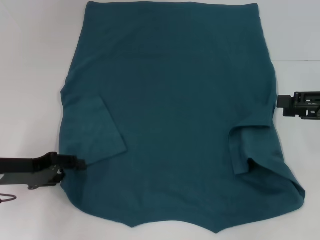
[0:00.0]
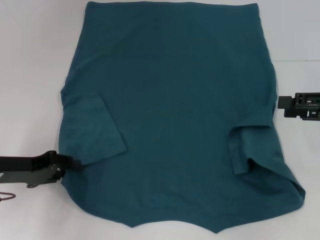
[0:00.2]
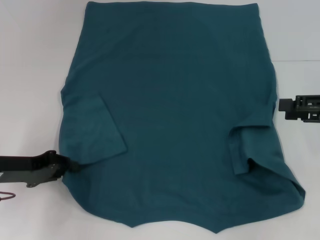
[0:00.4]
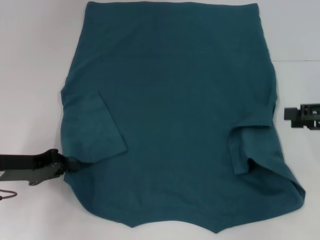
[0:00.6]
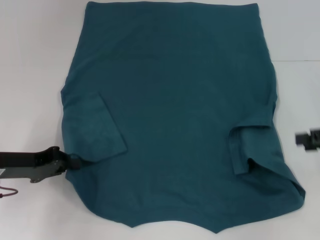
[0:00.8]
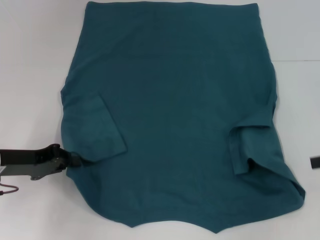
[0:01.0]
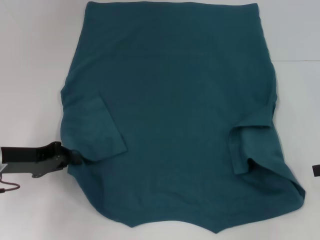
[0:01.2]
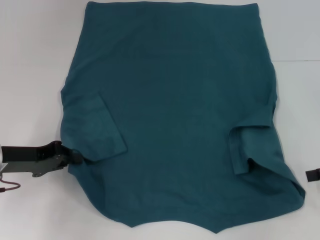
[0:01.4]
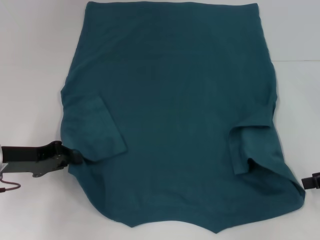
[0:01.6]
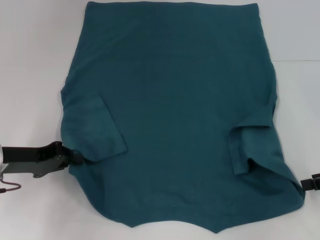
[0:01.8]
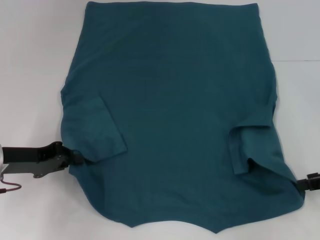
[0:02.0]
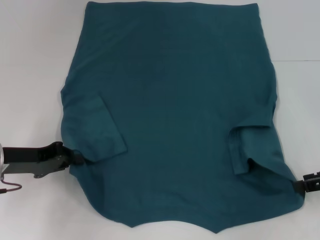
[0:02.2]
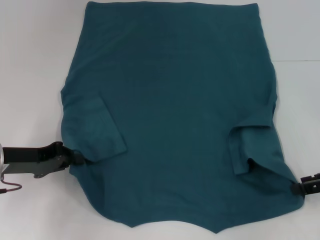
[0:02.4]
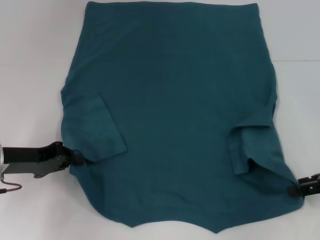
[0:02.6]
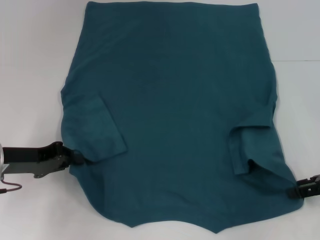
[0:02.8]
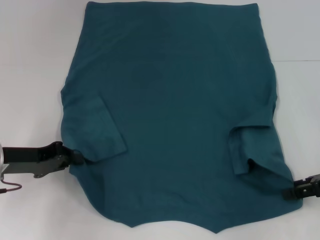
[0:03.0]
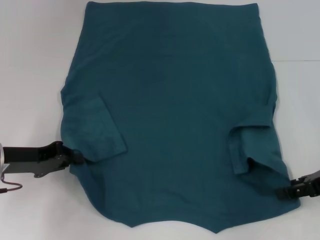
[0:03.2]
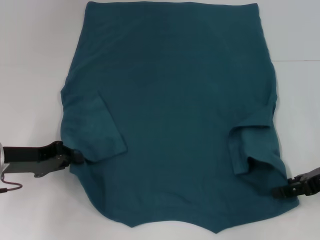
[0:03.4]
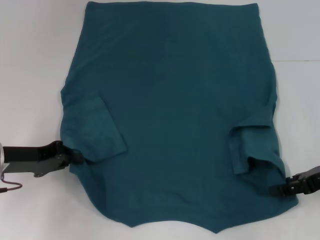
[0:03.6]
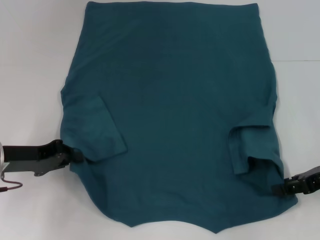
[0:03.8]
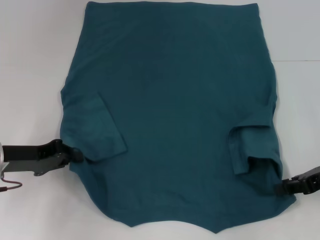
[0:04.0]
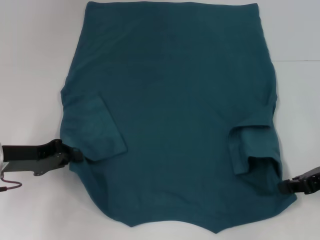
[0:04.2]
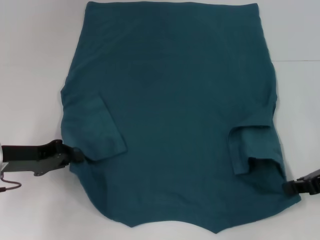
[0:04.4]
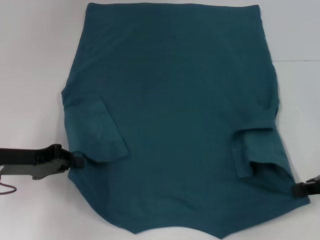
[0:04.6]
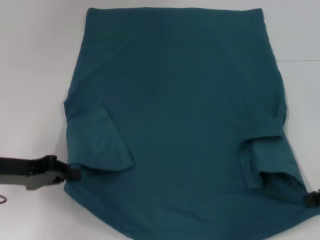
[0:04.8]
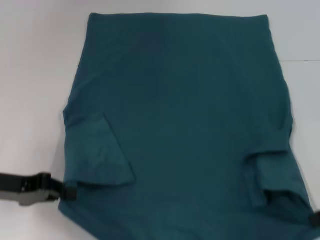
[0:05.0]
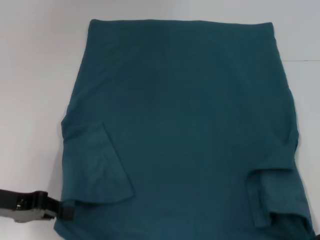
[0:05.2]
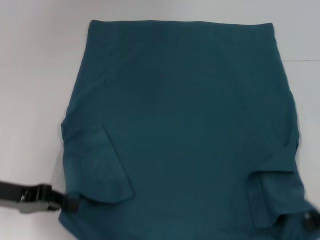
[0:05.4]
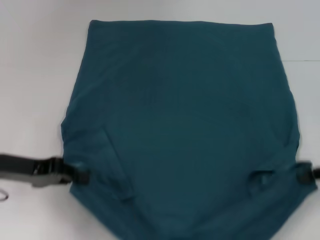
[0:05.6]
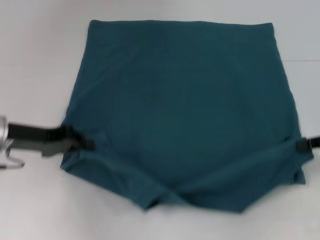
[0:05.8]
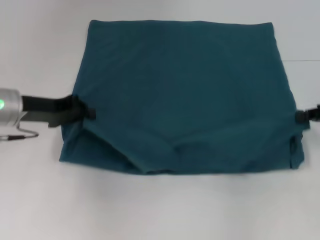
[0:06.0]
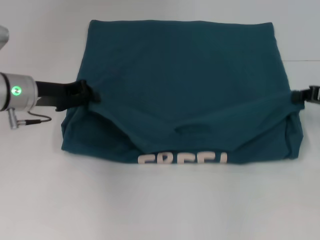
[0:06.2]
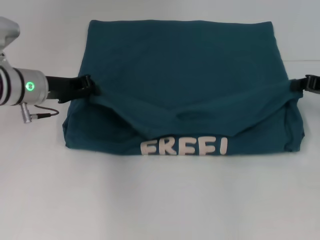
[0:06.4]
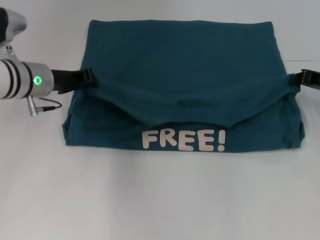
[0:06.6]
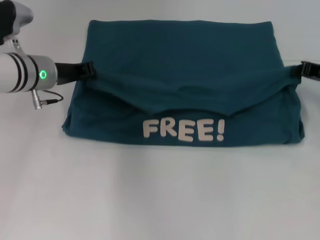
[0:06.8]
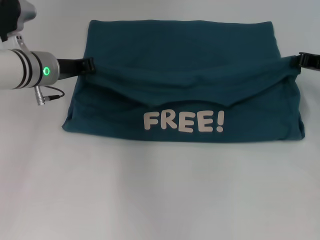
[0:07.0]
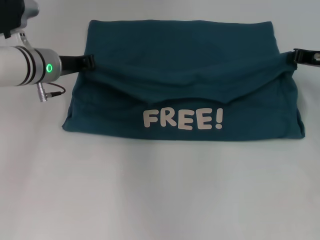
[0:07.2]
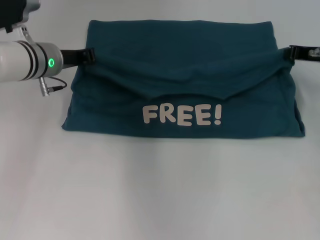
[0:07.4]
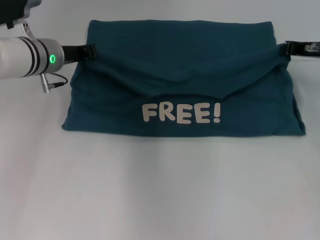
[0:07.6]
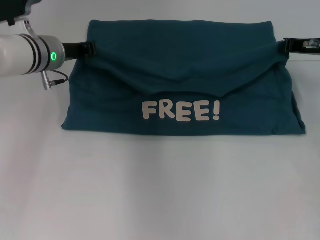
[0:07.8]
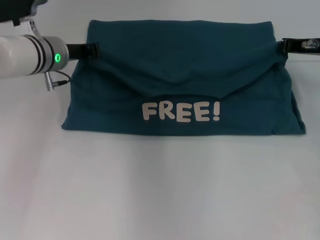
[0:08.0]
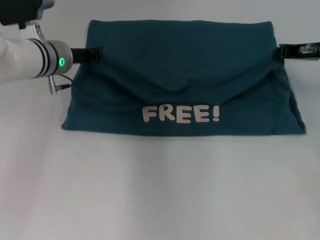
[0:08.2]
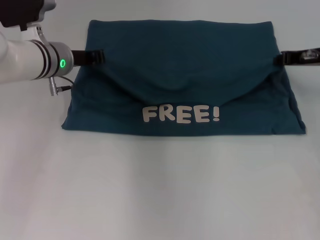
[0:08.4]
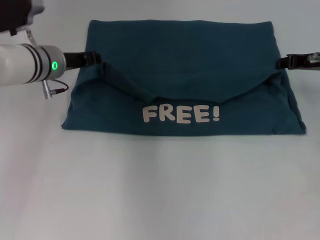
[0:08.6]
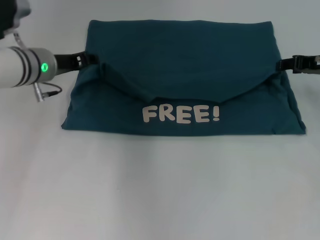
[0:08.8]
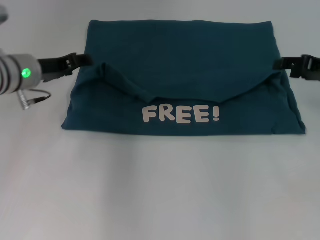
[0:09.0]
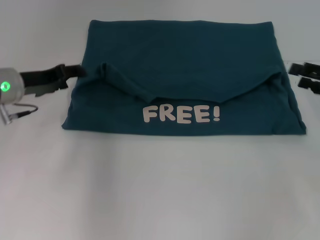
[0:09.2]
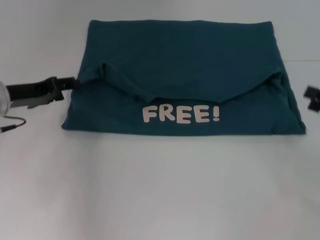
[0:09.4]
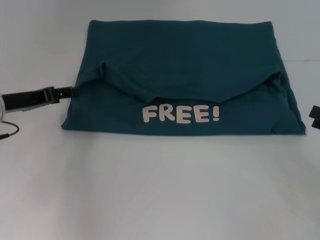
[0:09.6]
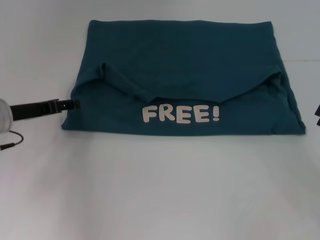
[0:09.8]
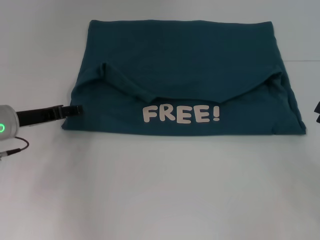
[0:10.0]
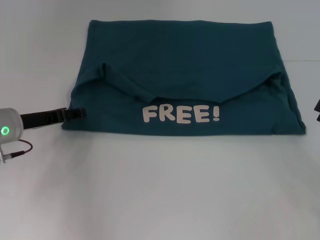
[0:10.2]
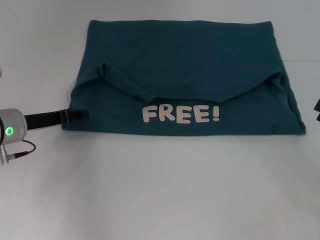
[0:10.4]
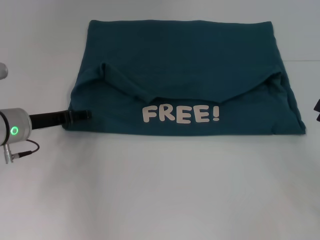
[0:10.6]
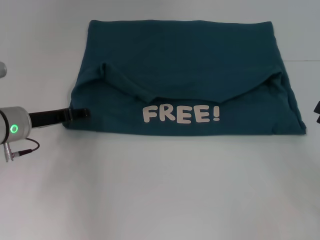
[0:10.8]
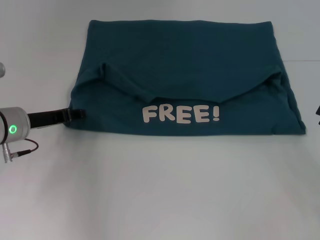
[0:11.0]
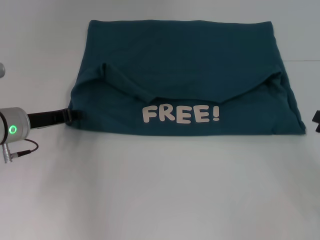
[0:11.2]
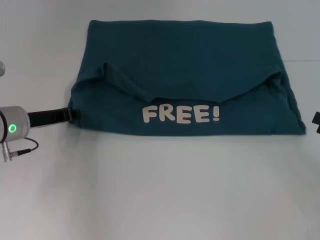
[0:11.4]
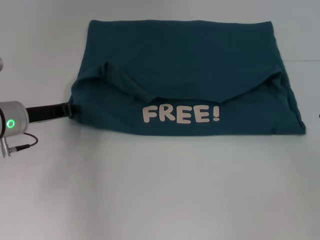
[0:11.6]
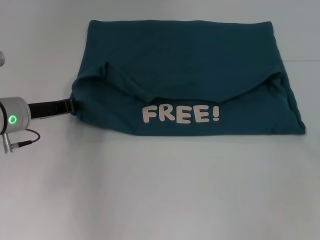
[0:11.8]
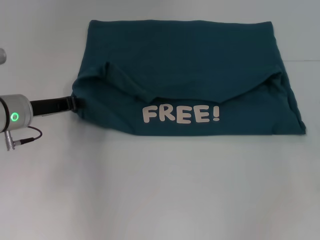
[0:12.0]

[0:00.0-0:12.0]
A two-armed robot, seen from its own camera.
Step, 0:01.4 to 0:05.2: Grab the bottom right corner with your right hand.
Step, 0:05.4 to 0:09.0: Fold the clothes to the left.
Step, 0:05.4 to 0:09.0: Fold the clothes to the right.
0:00.0 to 0:01.6: The left gripper closes its fingers. The right gripper changes place by approximately 5 cm.
0:01.6 to 0:03.0: The grippers stay close to where they were, moving slightly.
0:03.0 to 0:04.4: The right gripper closes.
0:04.4 to 0:06.0: The left gripper goes about 5 cm forward; the right gripper ends up some 5 cm from where it was.
0:06.0 to 0:07.6: The right gripper goes approximately 10 cm forward and to the left; the left gripper heads forward and to the right, covering approximately 10 cm.
0:07.6 to 0:09.0: The right gripper changes place by approximately 5 cm, and opens its fingers. The left gripper moves about 5 cm, and opens.
0:09.0 to 0:10.4: The right gripper is displaced backward by approximately 15 cm; the left gripper heads downward and backward, covering approximately 10 cm.
0:10.4 to 0:12.0: The left gripper closes up.

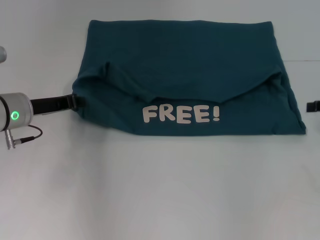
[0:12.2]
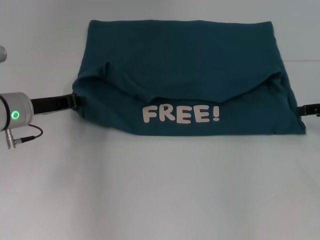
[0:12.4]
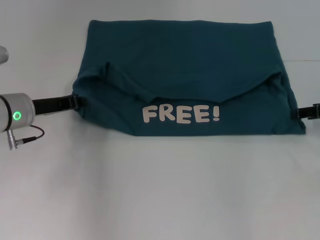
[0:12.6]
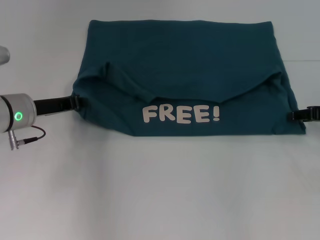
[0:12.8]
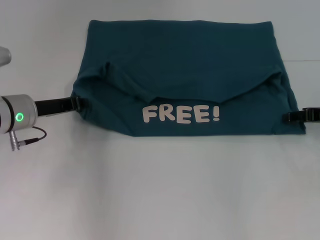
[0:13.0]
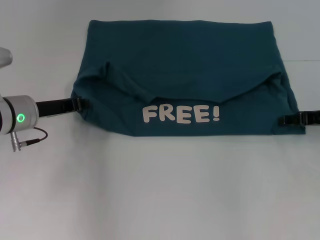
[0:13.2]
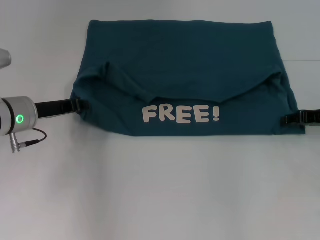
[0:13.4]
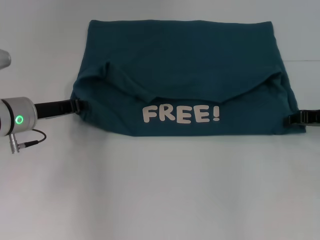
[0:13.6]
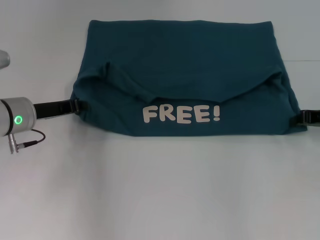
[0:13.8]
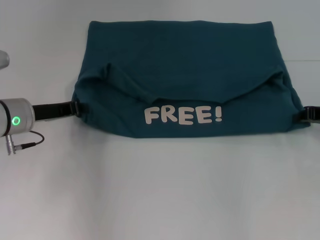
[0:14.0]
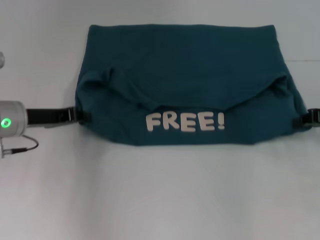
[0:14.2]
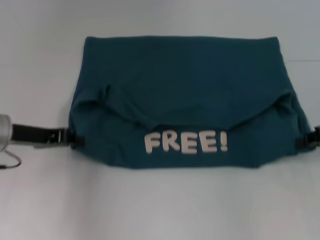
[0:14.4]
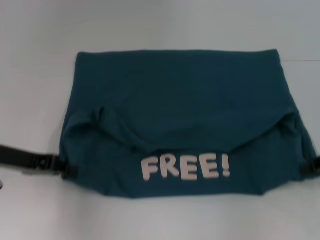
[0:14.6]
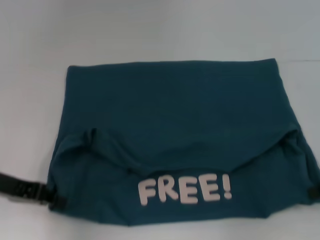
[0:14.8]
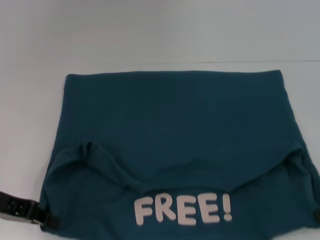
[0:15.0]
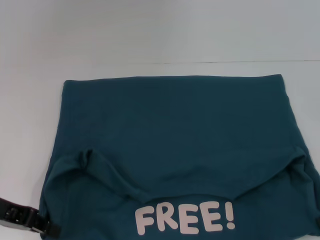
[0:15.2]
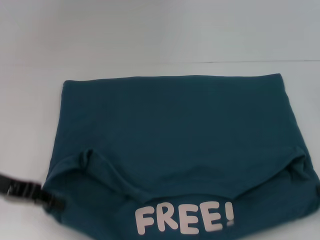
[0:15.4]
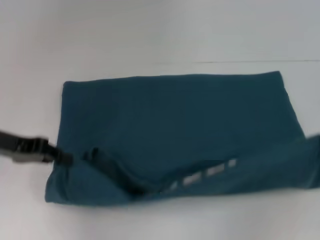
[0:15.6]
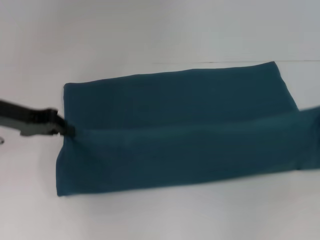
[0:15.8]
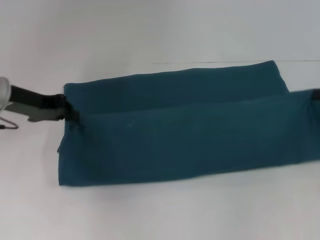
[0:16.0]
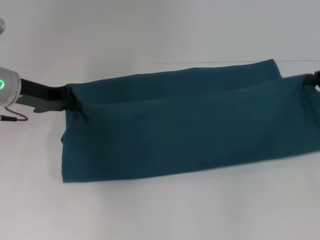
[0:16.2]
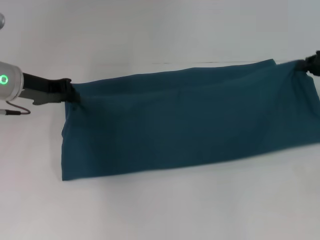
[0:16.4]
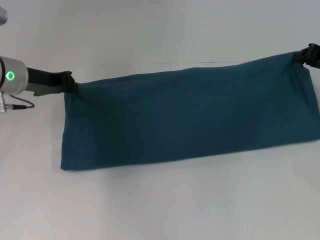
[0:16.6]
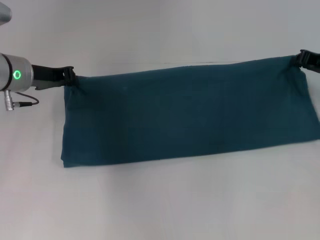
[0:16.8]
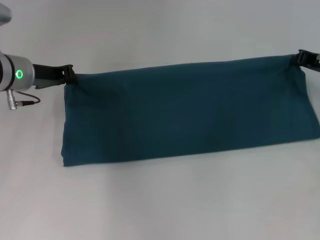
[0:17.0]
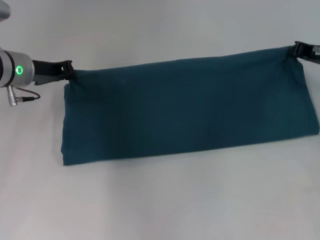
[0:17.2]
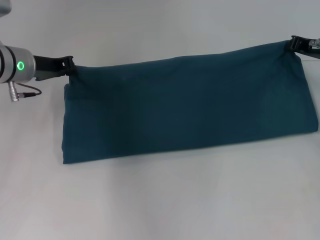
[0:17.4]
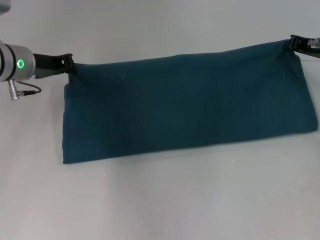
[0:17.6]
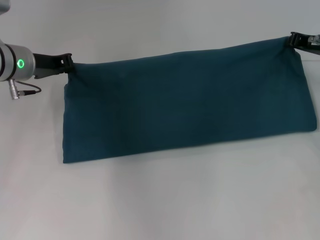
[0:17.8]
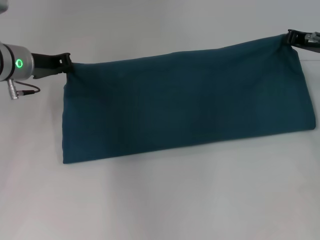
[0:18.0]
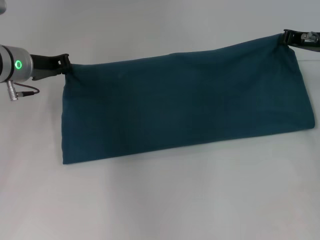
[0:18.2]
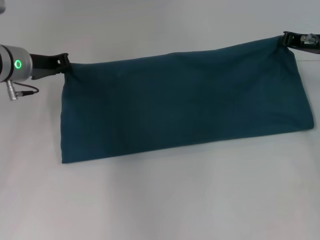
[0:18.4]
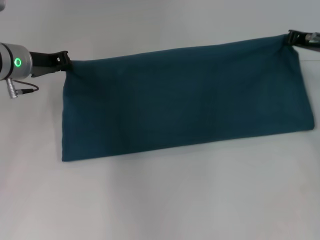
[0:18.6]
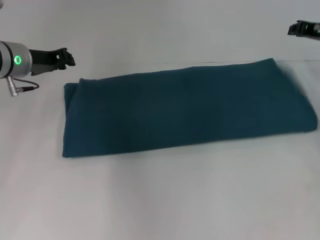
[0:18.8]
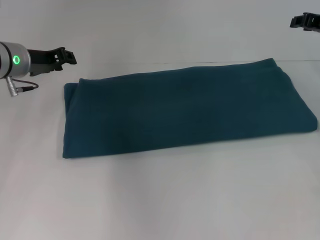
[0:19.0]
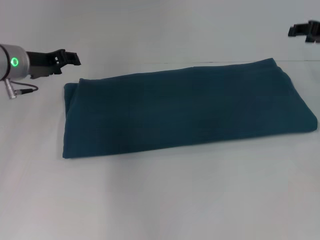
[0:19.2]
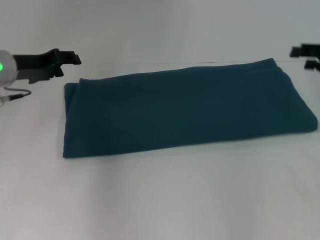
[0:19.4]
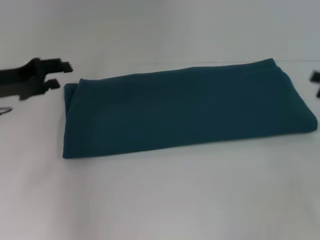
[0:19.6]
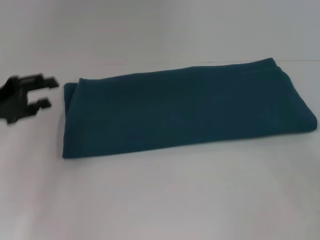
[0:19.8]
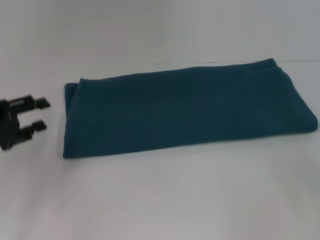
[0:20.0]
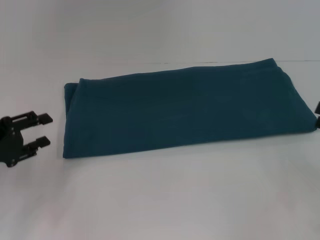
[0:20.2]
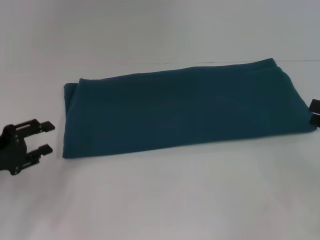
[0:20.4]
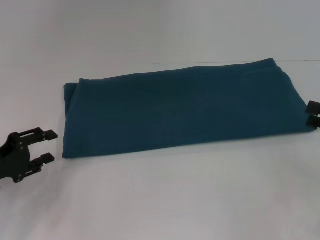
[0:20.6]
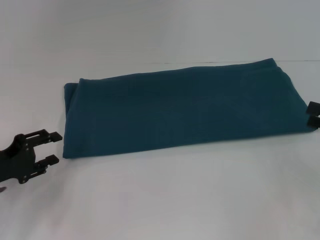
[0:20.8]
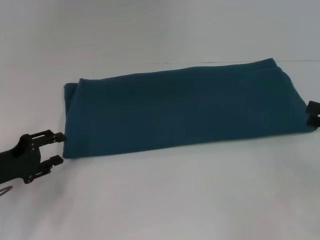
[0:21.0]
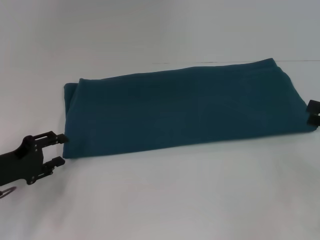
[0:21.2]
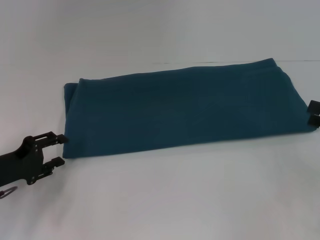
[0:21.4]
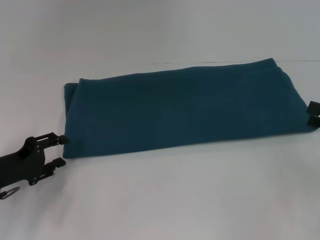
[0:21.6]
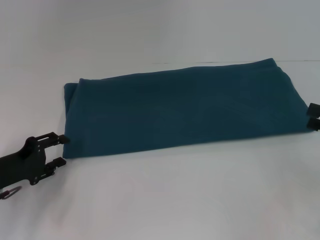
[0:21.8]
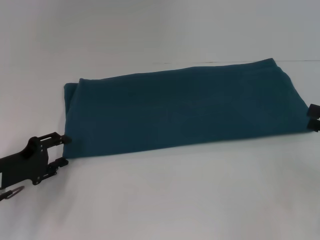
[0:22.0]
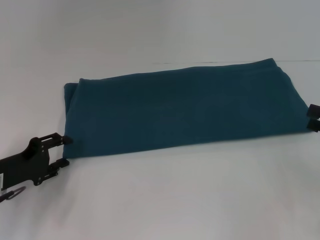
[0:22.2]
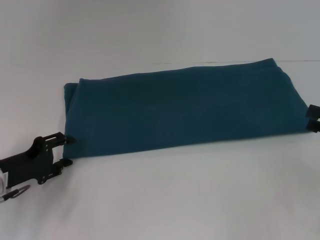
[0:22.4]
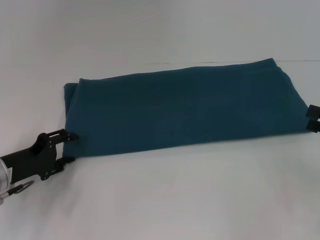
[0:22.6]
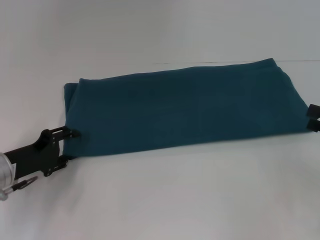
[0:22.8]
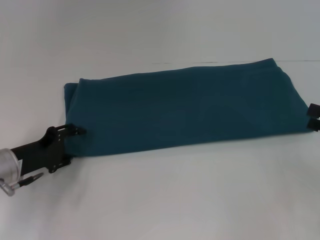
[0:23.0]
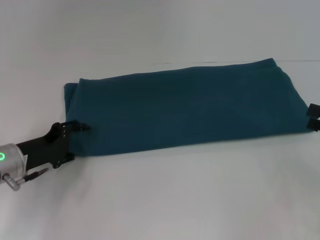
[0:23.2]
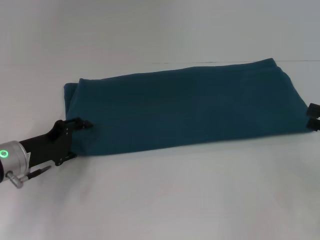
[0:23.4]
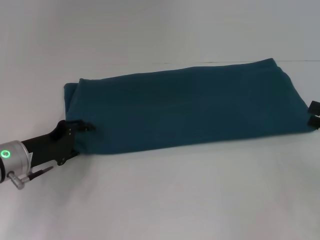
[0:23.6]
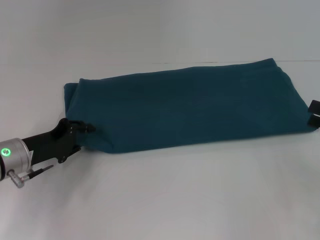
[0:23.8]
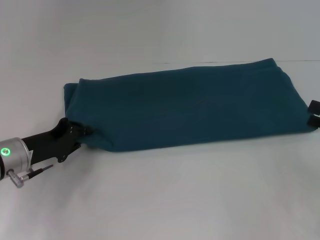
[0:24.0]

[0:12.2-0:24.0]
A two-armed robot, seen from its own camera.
Step, 0:12.2 to 0:15.2: Pull the clothes with your left hand.
Step, 0:12.2 to 0:15.2: Pull the clothes with your right hand.
Step, 0:15.4 to 0:18.6: Fold the clothes to the right.
0:12.2 to 0:13.6: The right gripper heads to the left, covering some 5 cm.
0:13.6 to 0:15.2: The left gripper shifts some 10 cm backward and to the left. Meanwhile the right gripper shifts approximately 10 cm backward, and closes its fingers.
0:15.2 to 0:16.6: Both grippers move forward, some 15 cm.
0:16.6 to 0:18.2: The right gripper shifts by some 5 cm.
0:18.2 to 0:19.6: The left gripper shifts about 10 cm backward and to the left, and opens. Meanwhile the right gripper goes roughly 15 cm backward and to the right, and opens up.
0:19.6 to 0:21.0: The left gripper heads downward and backward, covering approximately 15 cm.
0:21.0 to 0:22.6: The grippers make only small movements.
0:22.6 to 0:24.0: There are only small adjustments of the grippers.
